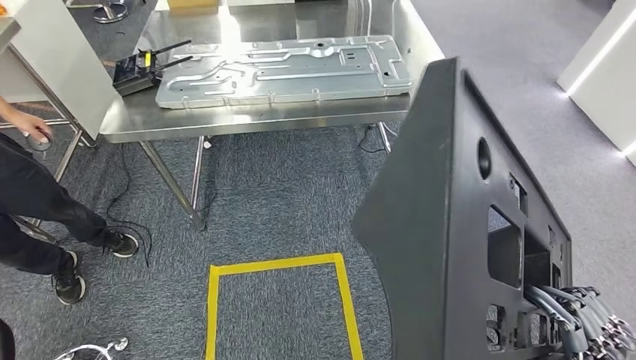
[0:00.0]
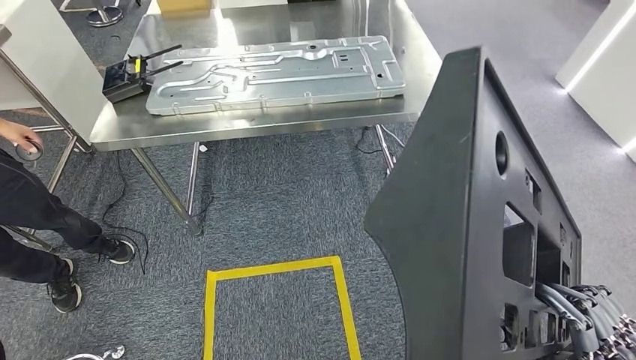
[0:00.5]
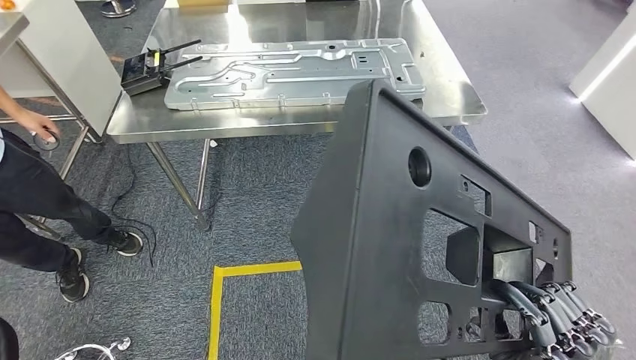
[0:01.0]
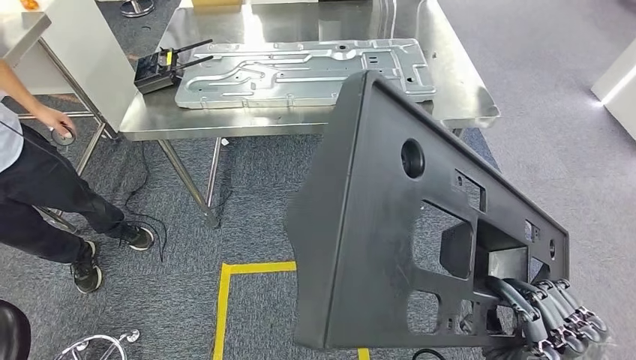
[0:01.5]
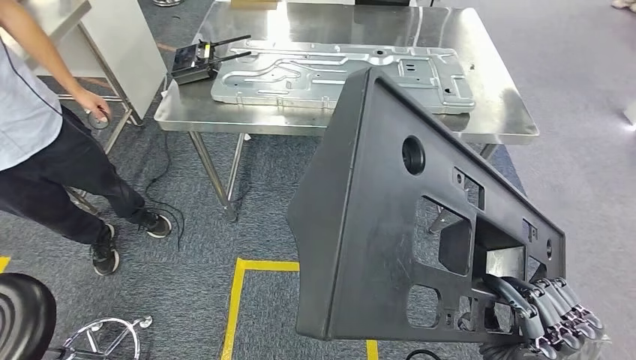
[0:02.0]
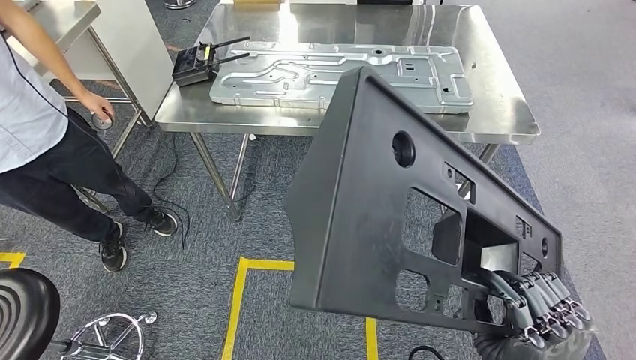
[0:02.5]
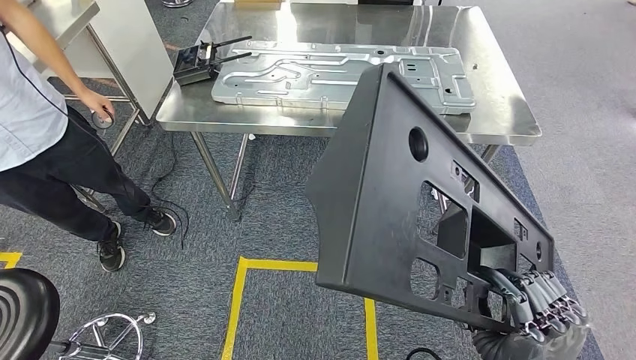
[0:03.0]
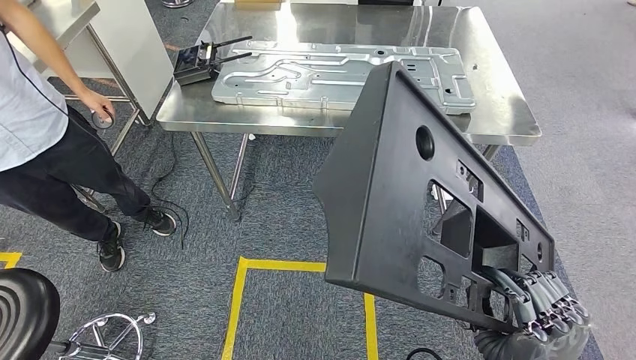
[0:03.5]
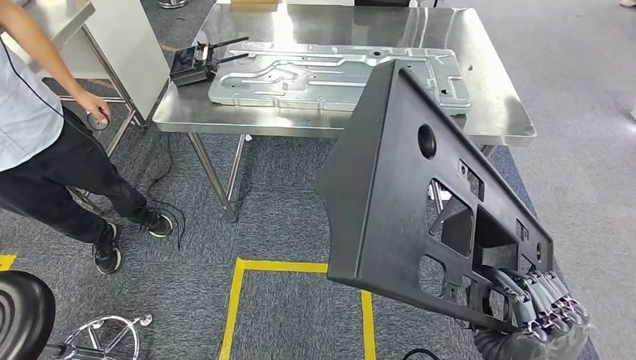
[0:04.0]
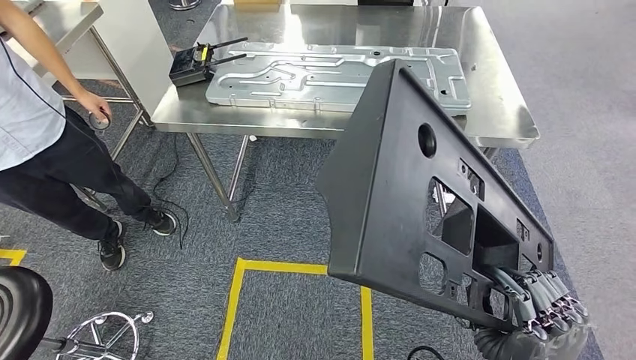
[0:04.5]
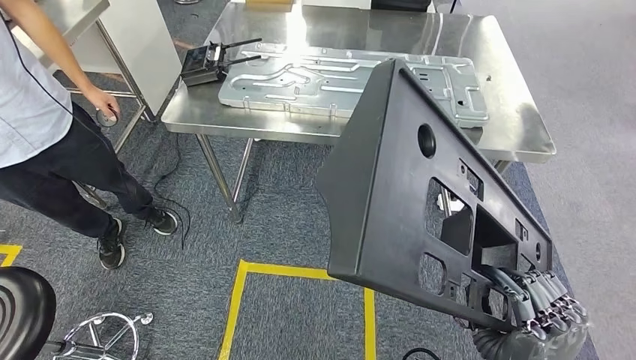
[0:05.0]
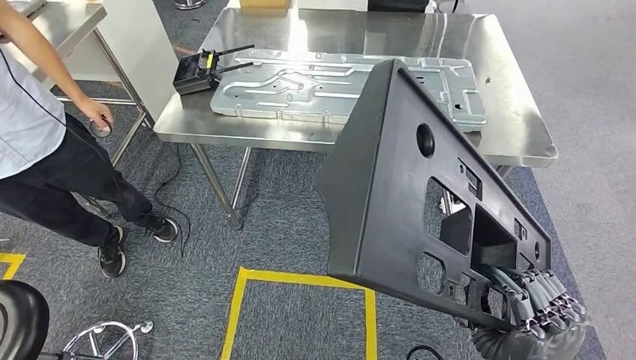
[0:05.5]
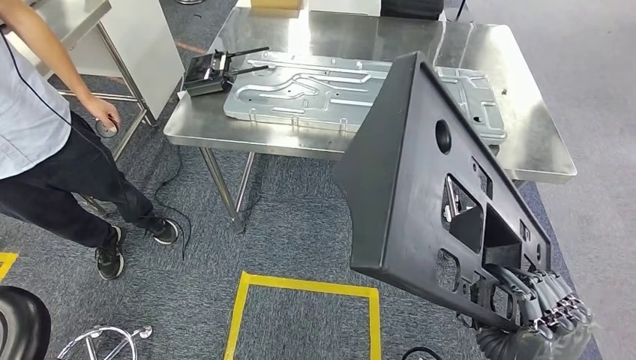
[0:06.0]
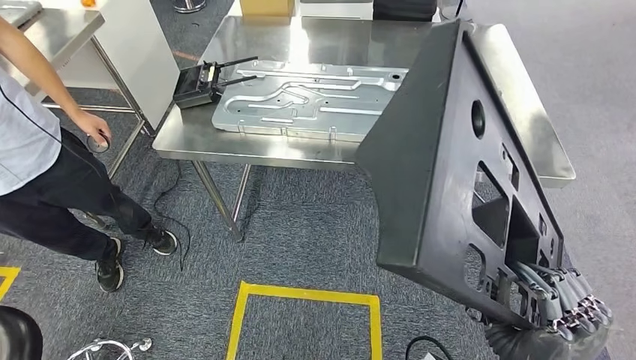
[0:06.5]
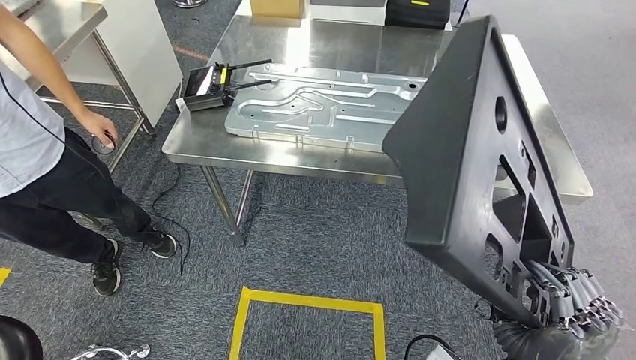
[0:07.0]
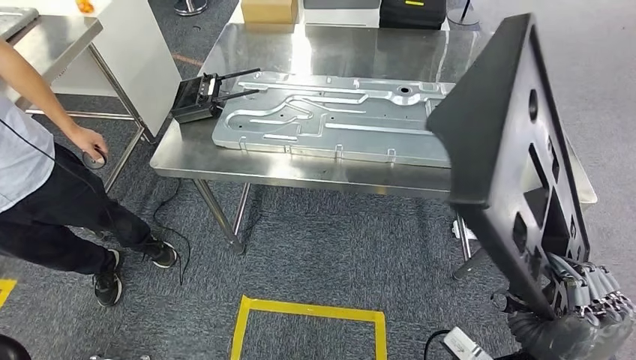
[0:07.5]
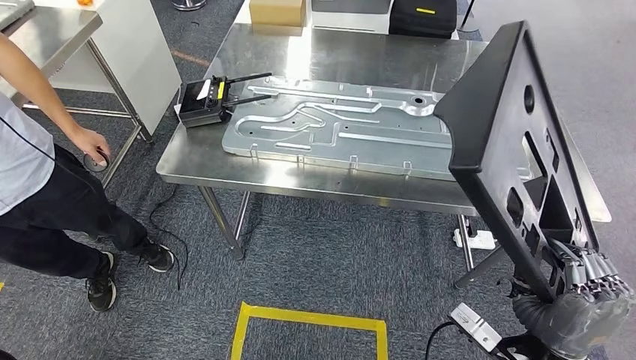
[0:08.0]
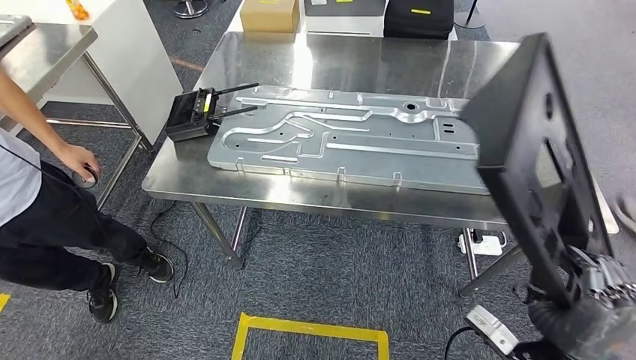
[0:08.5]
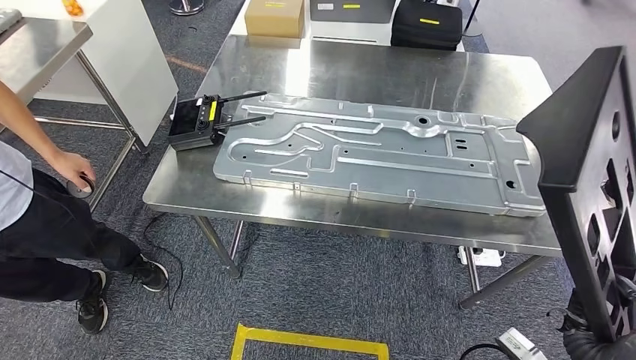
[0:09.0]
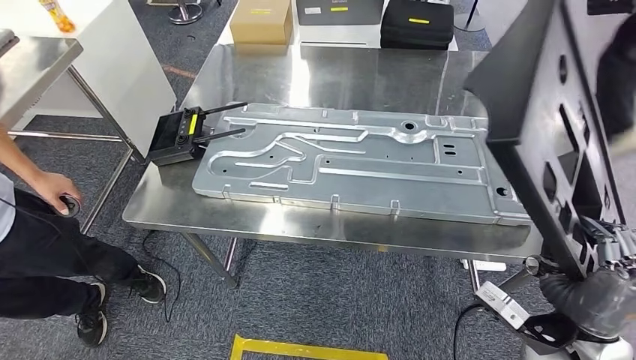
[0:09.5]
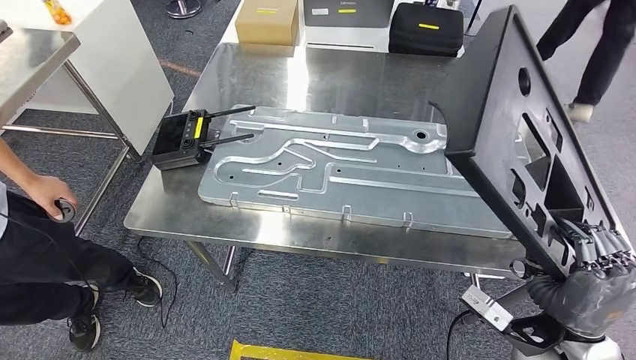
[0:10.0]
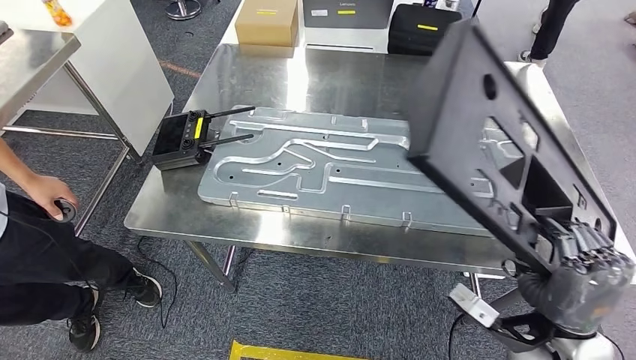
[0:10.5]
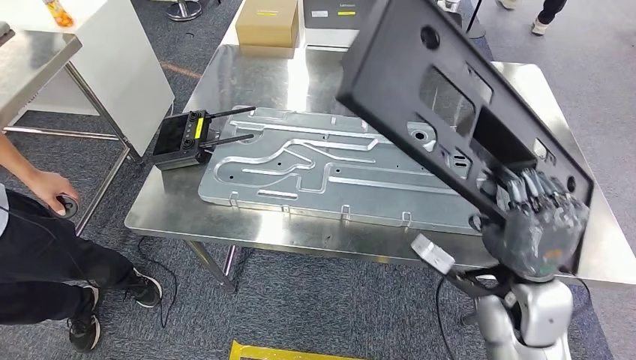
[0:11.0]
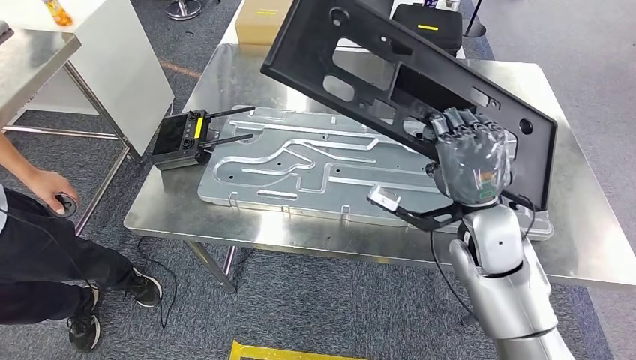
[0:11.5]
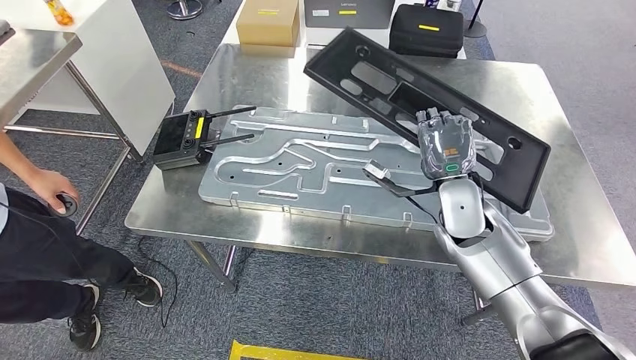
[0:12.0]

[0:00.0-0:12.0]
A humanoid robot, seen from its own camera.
Step, 0:00.0 to 0:08.5: Move the large material to the front of the workbench.
0:02.0 to 0:04.0: There are only small adjustments of the hands.

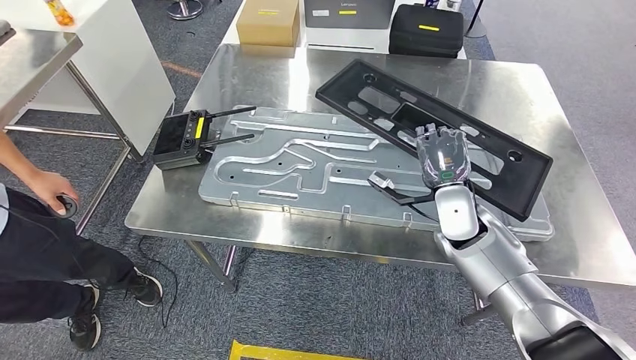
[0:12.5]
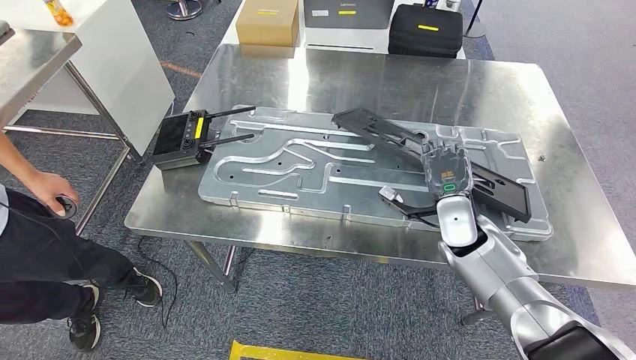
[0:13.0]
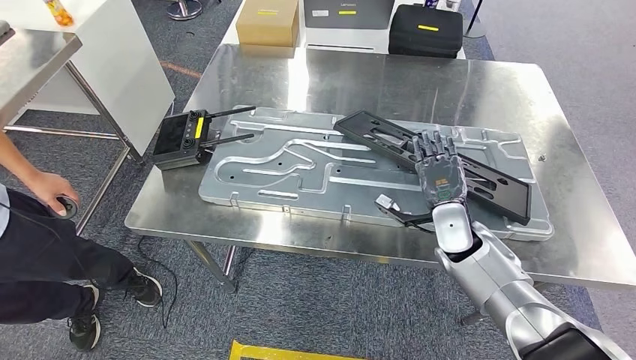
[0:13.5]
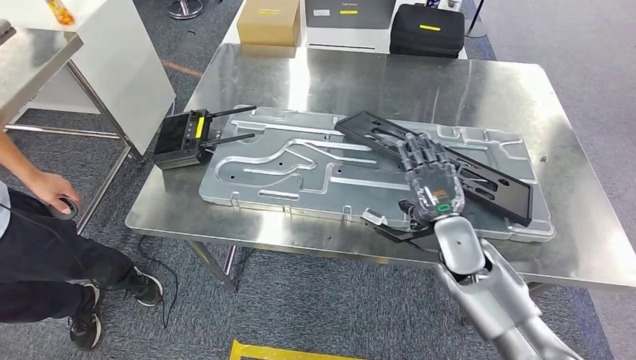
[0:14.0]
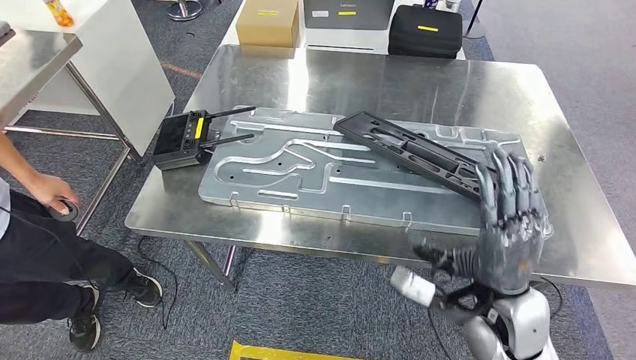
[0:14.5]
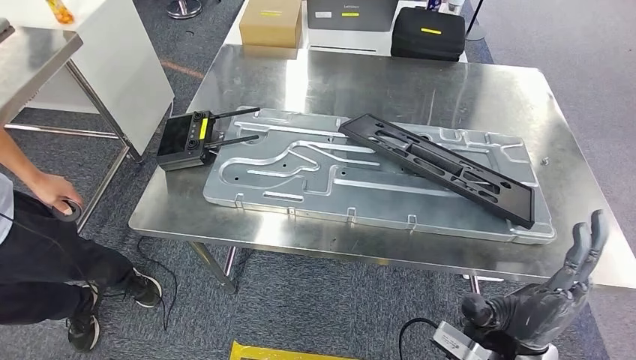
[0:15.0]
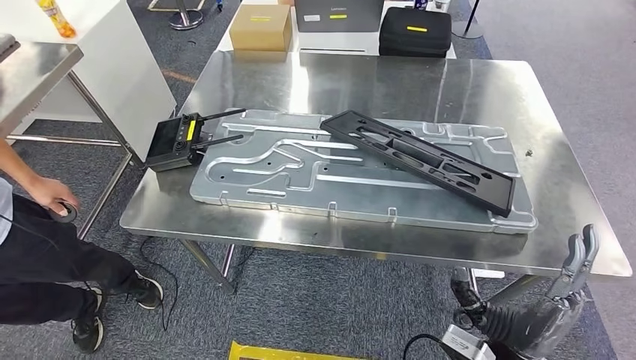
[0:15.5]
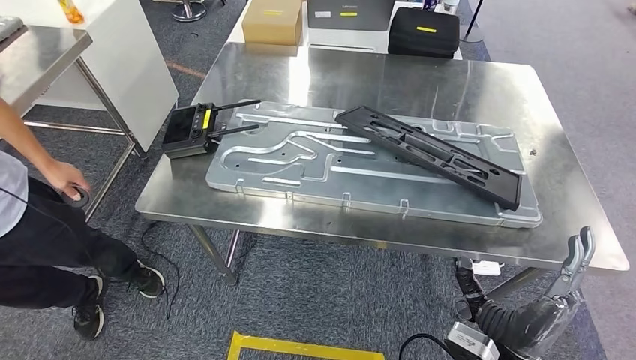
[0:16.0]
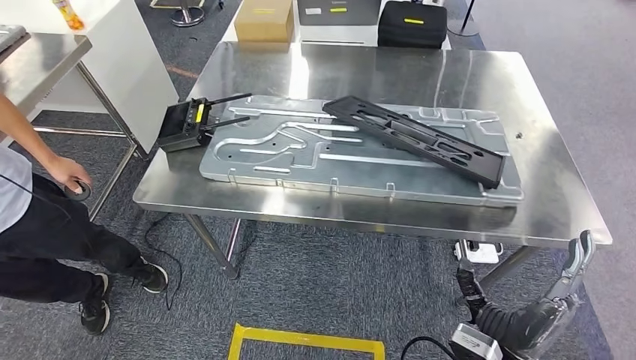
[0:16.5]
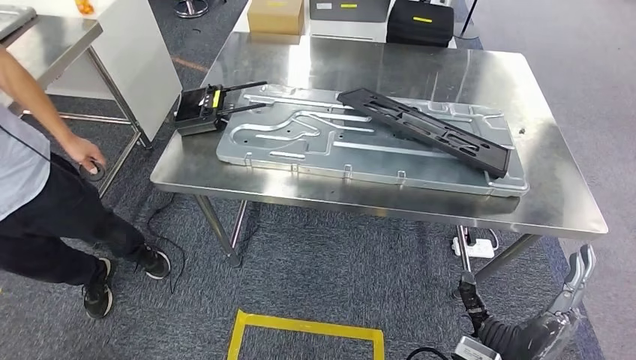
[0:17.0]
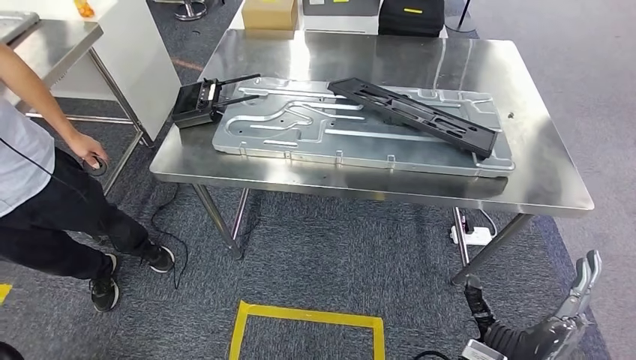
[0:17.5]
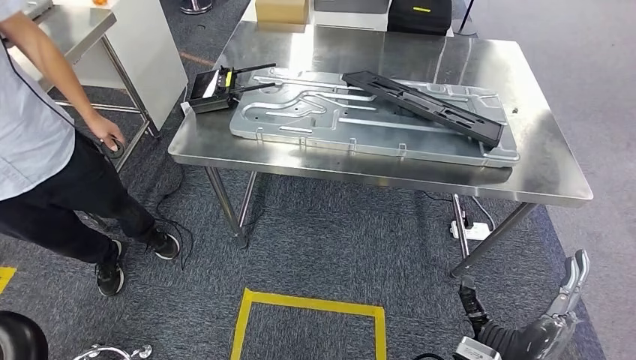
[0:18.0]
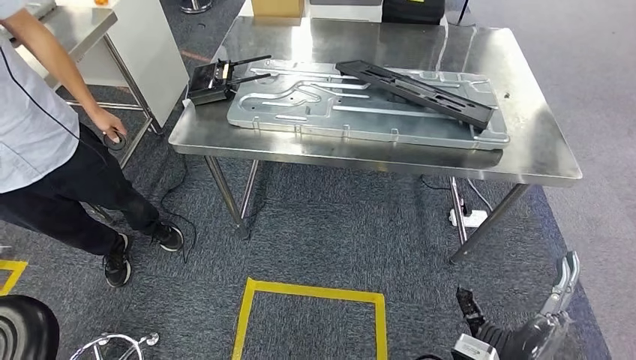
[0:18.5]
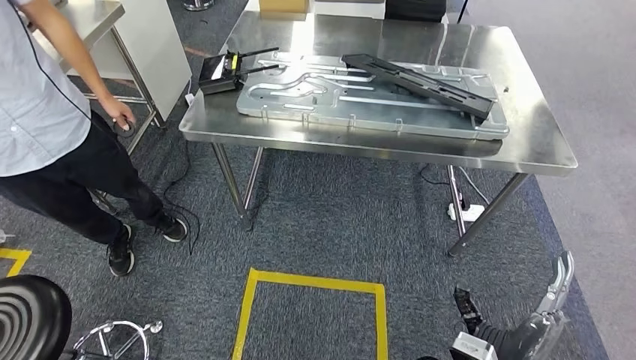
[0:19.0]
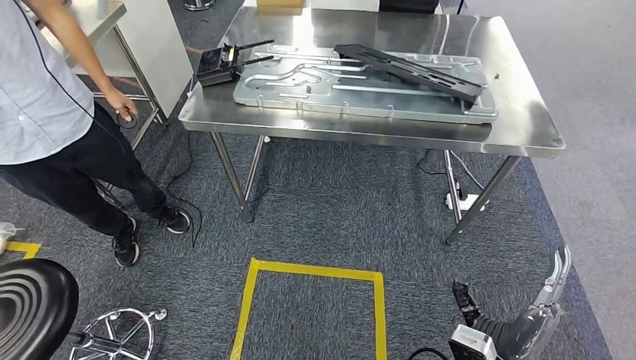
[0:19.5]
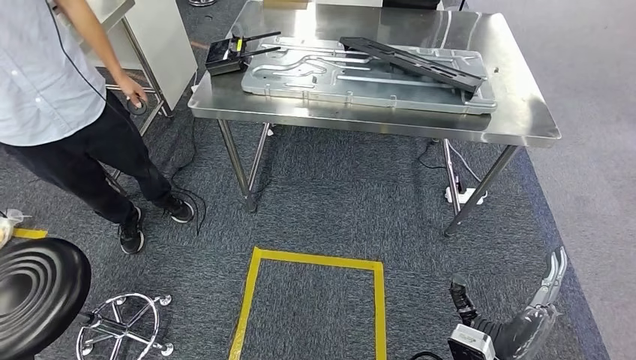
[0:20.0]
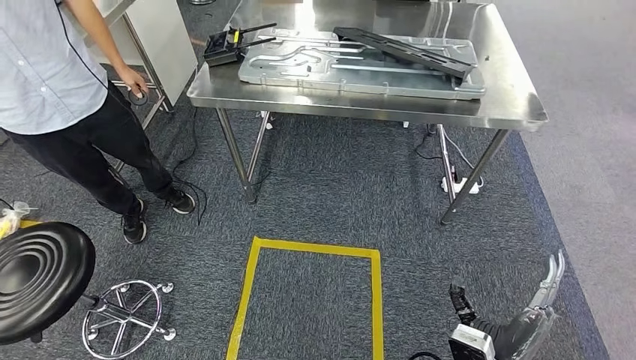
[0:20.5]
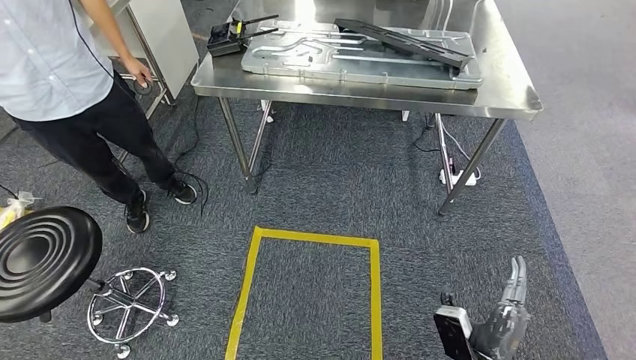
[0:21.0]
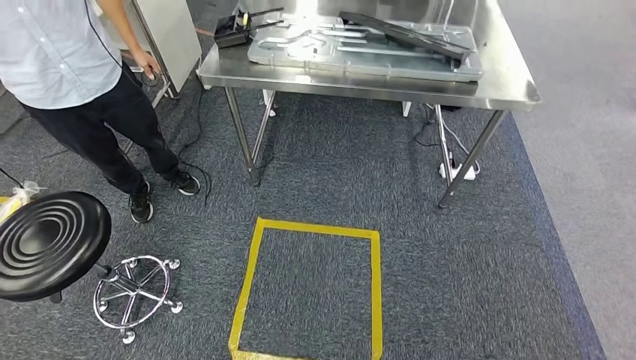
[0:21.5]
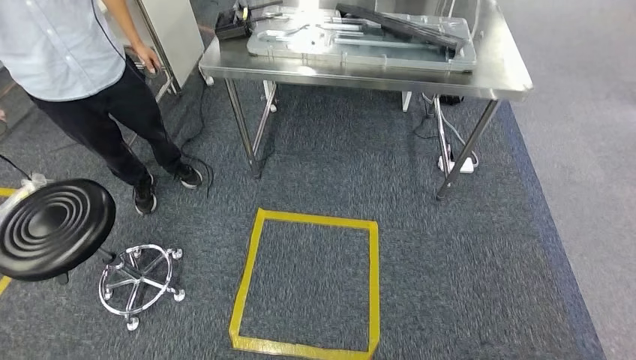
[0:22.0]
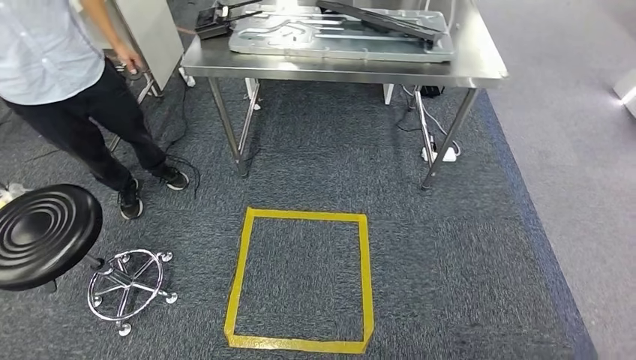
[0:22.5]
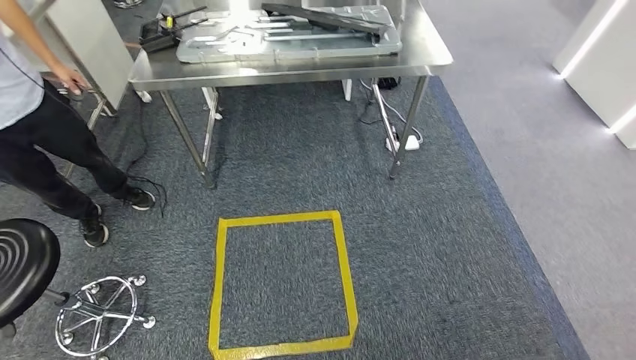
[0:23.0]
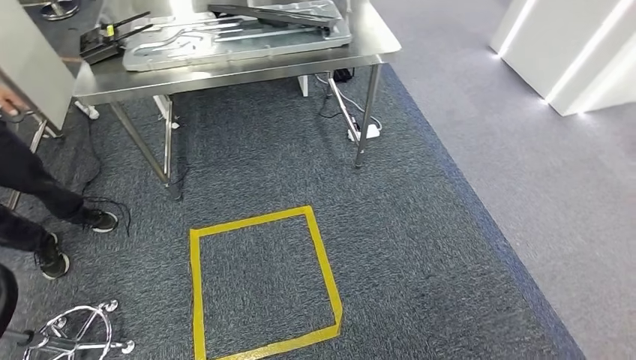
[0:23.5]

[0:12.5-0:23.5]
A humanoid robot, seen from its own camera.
Step, 0:12.5 to 0:14.5: Insert the large material into the corresponding hole on the workbench.
0:12.5 to 0:14.5: The right hand travels backward by roughly 15 cm.
